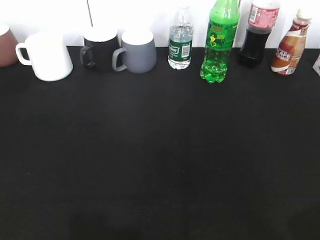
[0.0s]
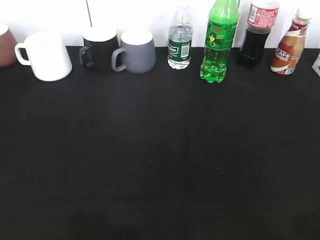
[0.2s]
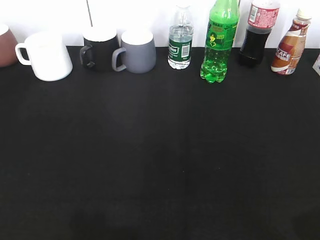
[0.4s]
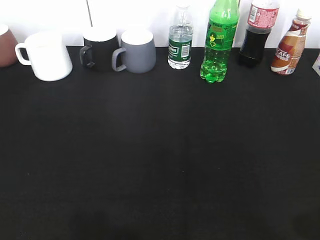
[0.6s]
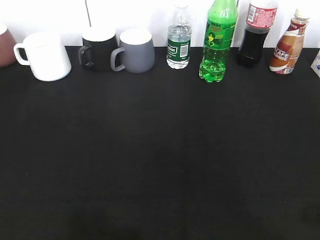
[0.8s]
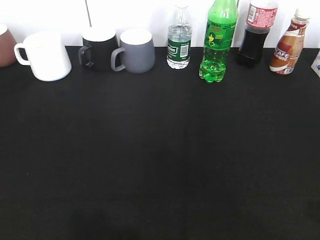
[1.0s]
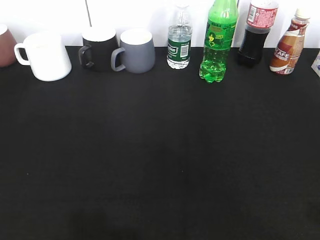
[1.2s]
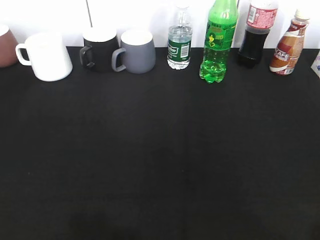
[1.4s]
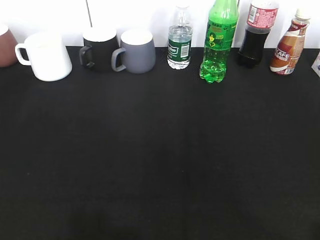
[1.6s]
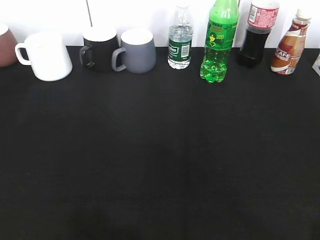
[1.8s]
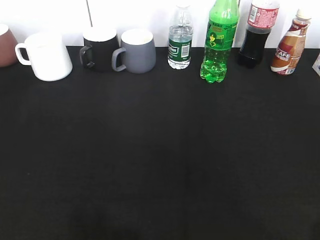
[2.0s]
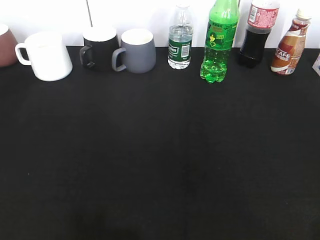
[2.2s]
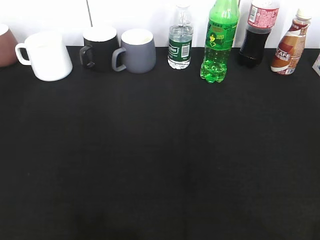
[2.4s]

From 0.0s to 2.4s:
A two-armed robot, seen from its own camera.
From 1.2s to 2.4s: The grippers stay close to where they were, moving slightly.

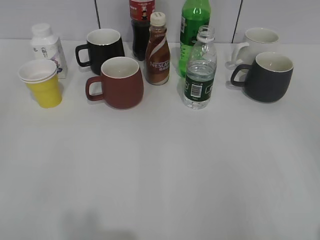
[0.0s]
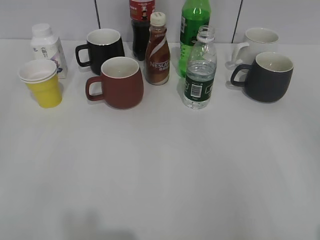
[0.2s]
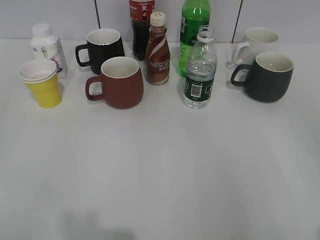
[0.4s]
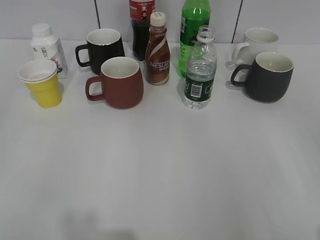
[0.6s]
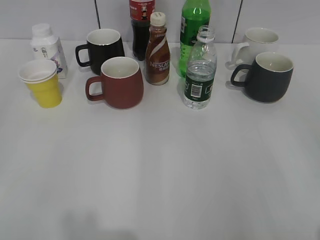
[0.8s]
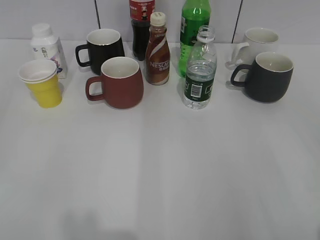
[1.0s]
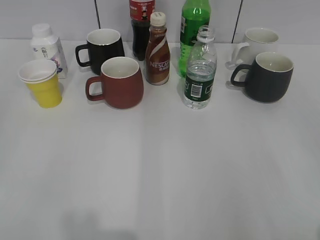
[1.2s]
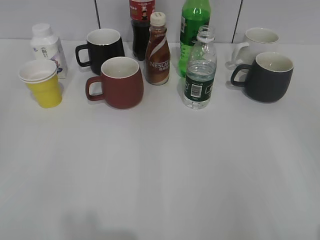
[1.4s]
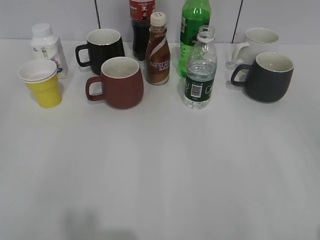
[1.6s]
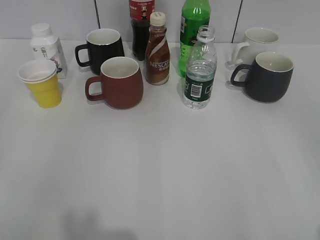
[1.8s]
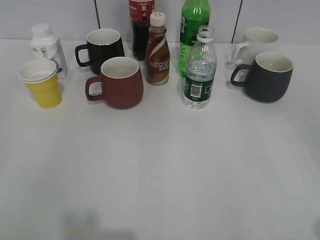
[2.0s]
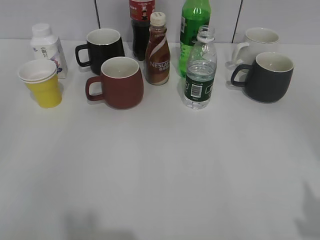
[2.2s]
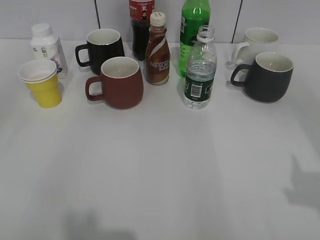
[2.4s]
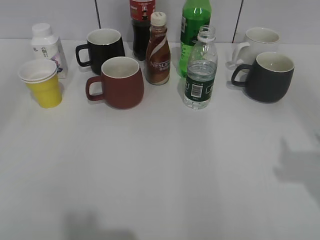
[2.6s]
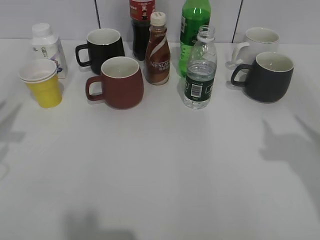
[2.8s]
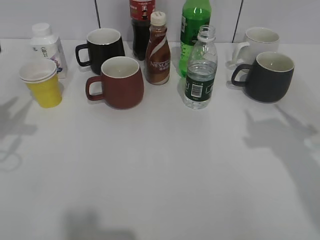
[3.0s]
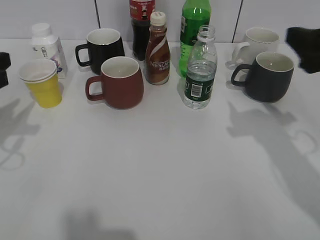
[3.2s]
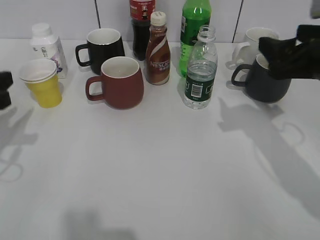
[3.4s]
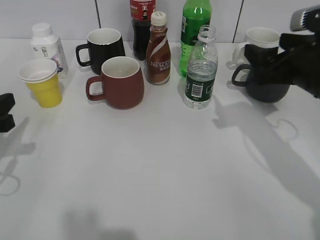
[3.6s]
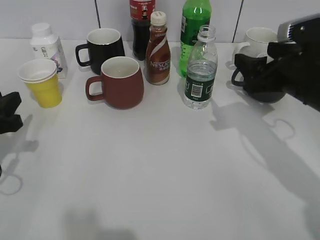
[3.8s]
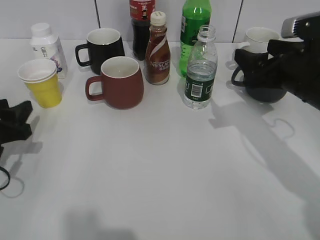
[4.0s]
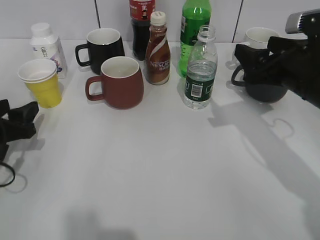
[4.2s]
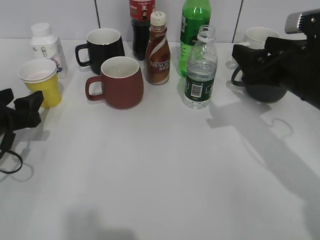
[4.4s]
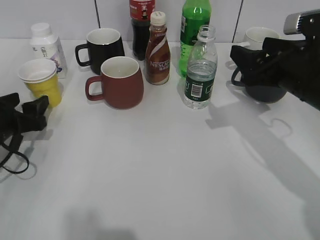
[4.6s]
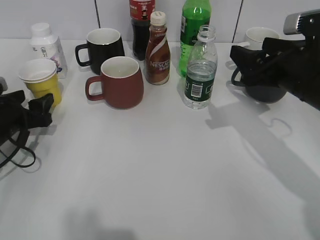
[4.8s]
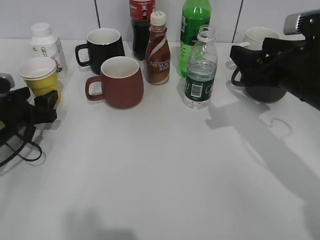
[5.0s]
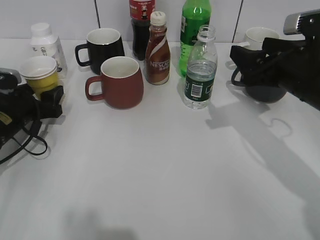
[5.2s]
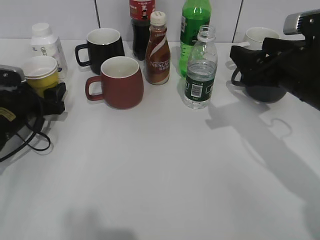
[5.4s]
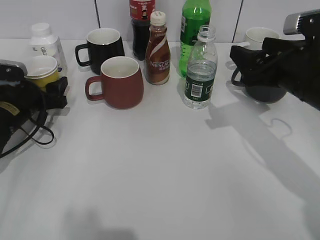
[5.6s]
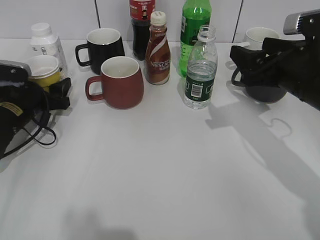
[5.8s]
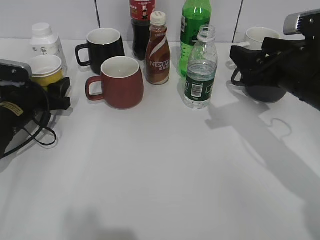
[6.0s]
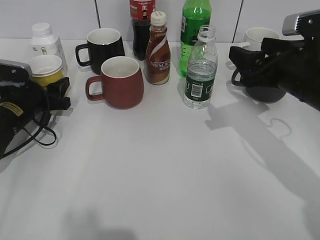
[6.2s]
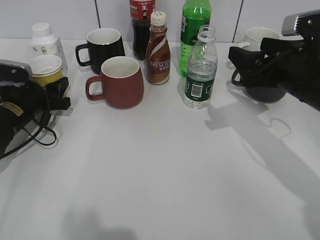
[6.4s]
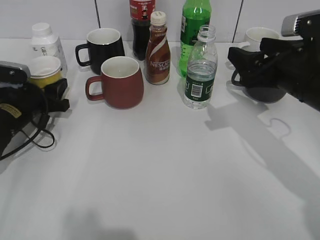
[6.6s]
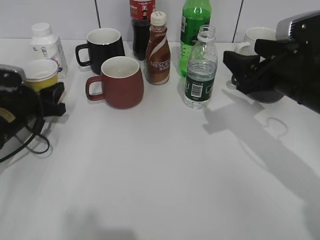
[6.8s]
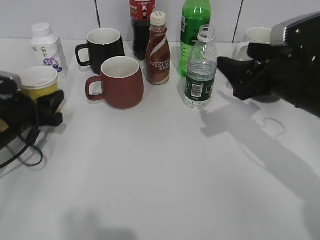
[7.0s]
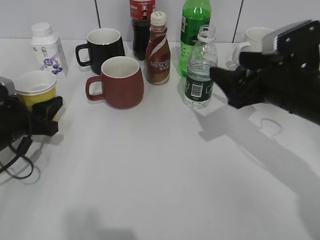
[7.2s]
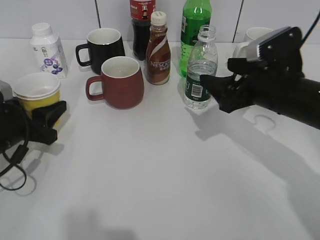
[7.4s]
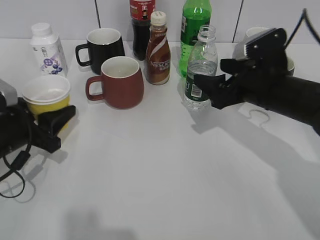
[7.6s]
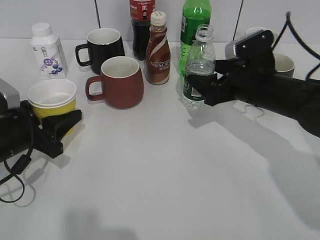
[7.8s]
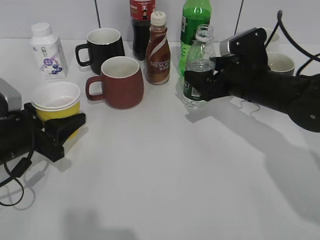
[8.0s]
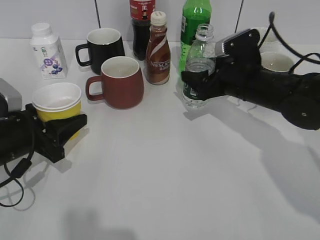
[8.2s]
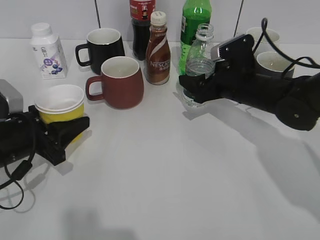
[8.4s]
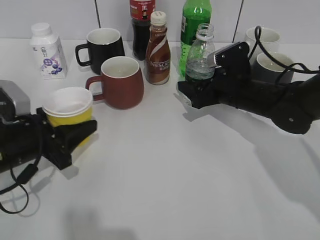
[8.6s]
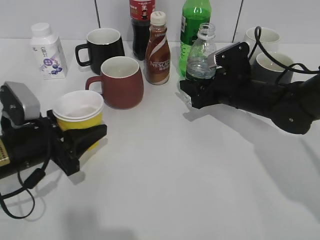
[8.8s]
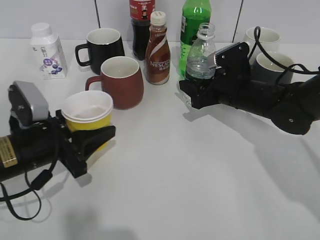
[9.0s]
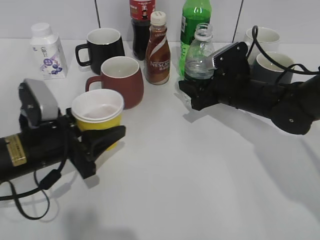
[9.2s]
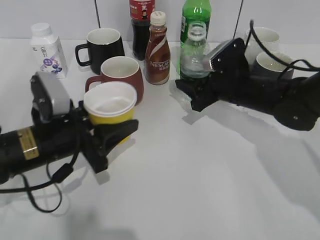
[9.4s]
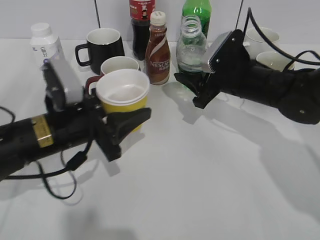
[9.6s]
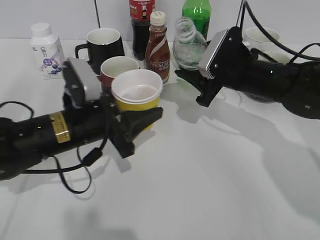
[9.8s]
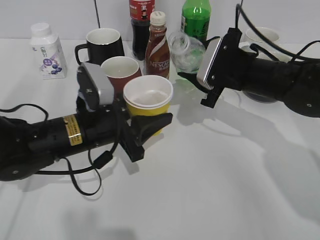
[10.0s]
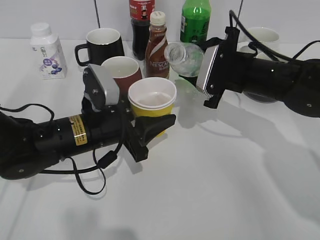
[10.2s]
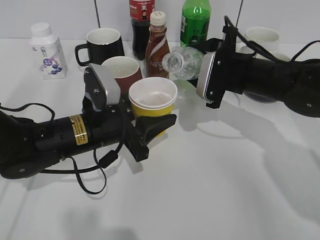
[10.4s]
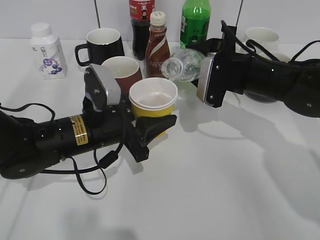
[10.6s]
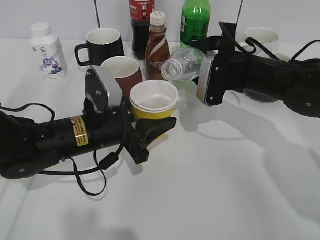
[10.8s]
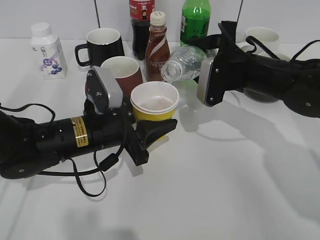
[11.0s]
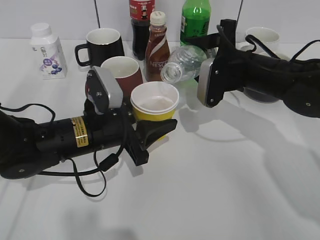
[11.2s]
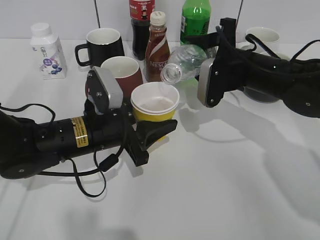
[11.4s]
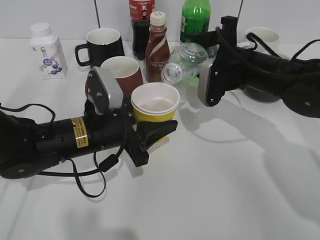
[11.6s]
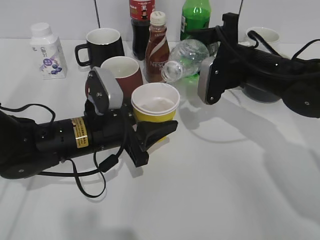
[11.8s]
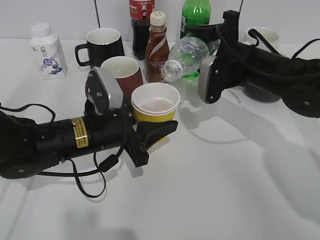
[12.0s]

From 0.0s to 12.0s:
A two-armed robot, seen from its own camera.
Step, from 1.8s to 6.8s: Grasp the yellow paper cup with left gripper.
Step, from 7.0s to 8.6s: Grasp the bottle with water with right gripper.
Step, from 8.8s to 10.2s: Lift the yellow paper cup with left gripper.
From 1.6s to 3.0s: The grippers both shift forward by roughly 20 cm.
From 3.0s to 4.4s: The right gripper shifts about 15 cm downward, forward and to the left. The left gripper shifts approximately 15 cm downward, and opens up.
From 4.4s to 6.0s: The left gripper heads forward, covering roughly 10 cm.
From 6.0s to 7.6s: The left gripper travels backward by some 10 cm; the right gripper ends up approximately 5 cm from where it was.
From 7.6s to 9.0s: The right gripper moves forward and downward, roughly 10 cm, and closes; the left gripper is displaced to the right by some 5 cm.
From 9.0s to 10.4s: The right gripper moves upward, approximately 5 cm; the left gripper goes roughly 10 cm to the right.

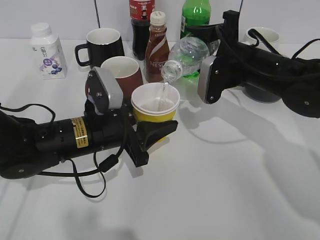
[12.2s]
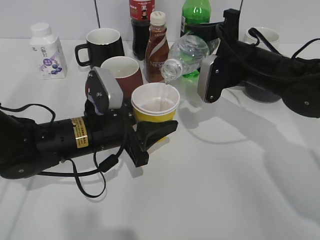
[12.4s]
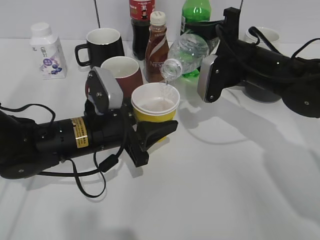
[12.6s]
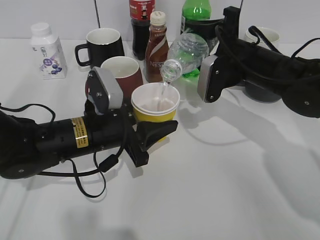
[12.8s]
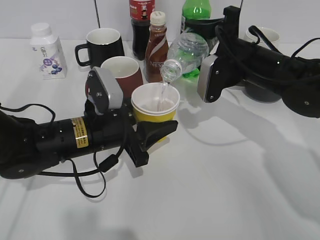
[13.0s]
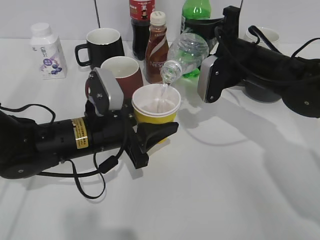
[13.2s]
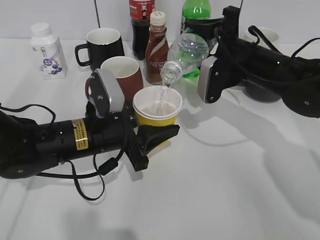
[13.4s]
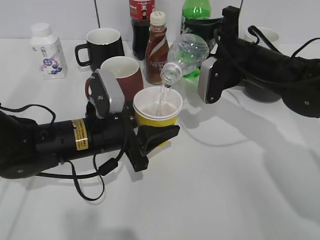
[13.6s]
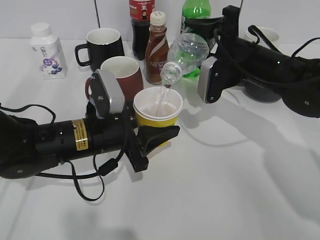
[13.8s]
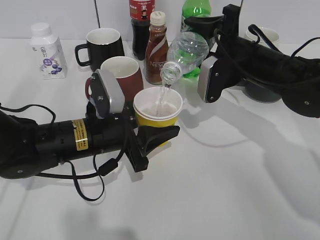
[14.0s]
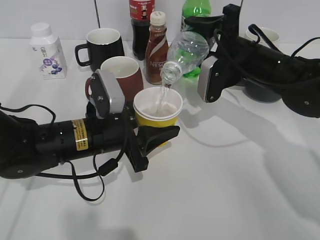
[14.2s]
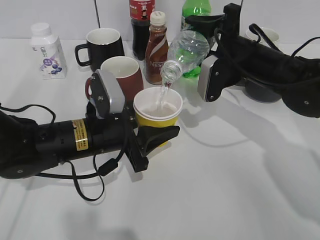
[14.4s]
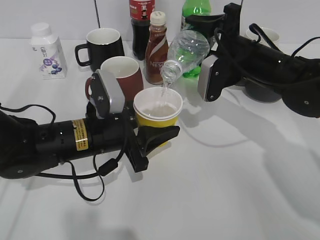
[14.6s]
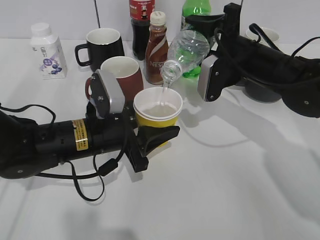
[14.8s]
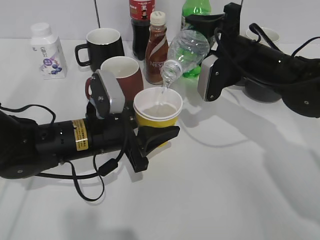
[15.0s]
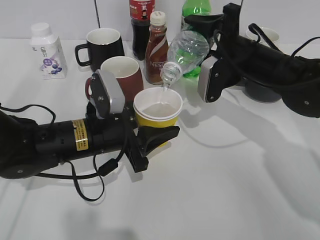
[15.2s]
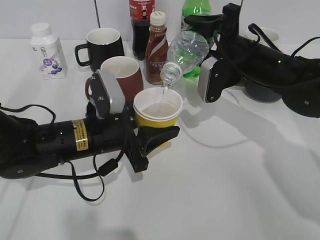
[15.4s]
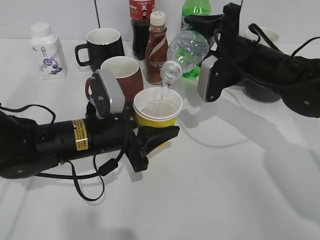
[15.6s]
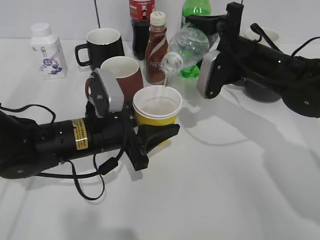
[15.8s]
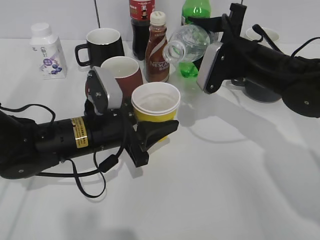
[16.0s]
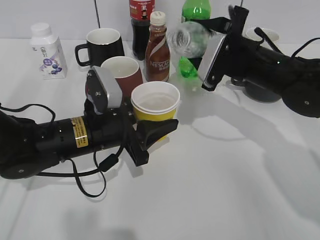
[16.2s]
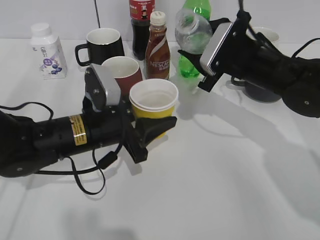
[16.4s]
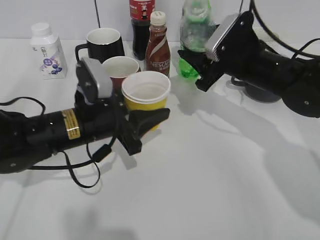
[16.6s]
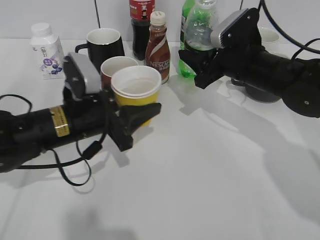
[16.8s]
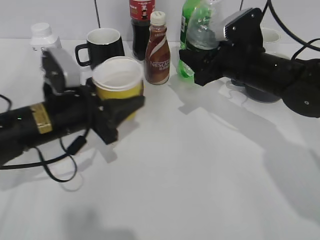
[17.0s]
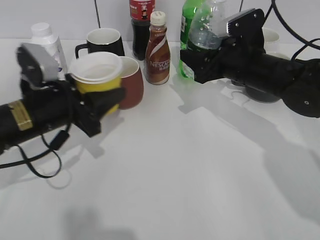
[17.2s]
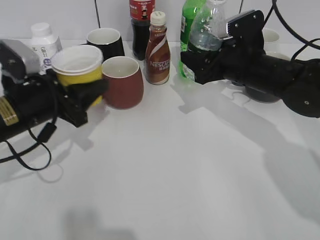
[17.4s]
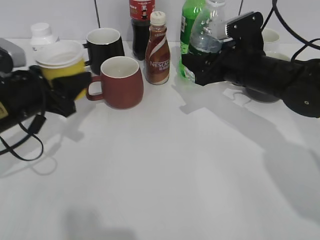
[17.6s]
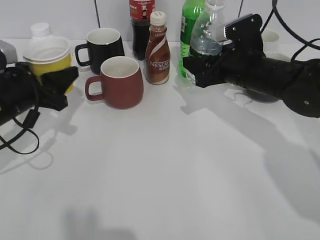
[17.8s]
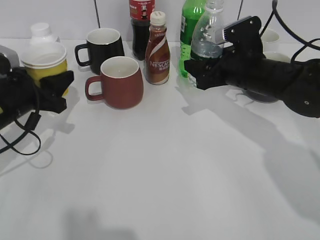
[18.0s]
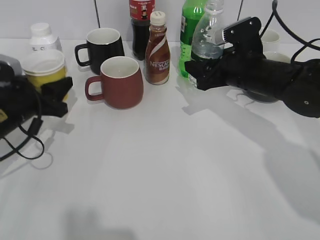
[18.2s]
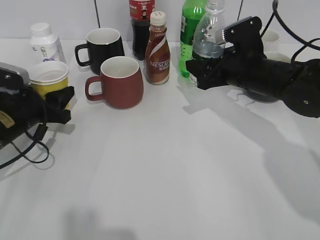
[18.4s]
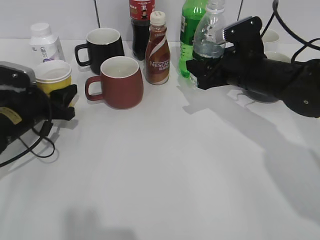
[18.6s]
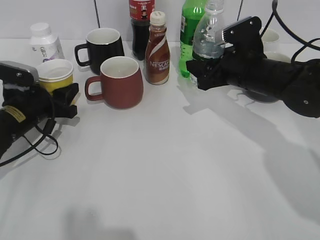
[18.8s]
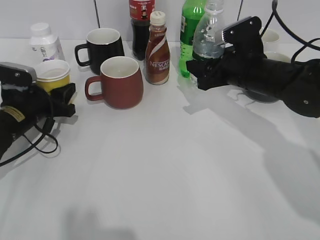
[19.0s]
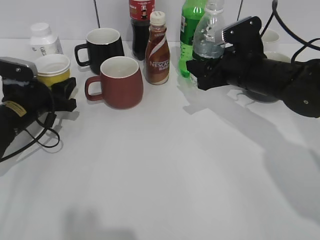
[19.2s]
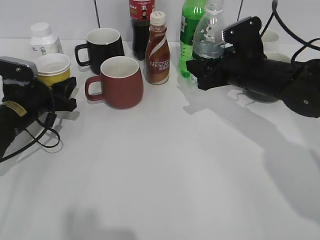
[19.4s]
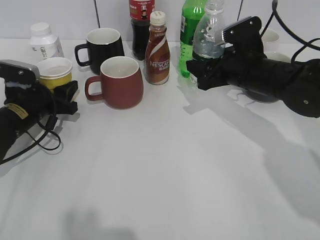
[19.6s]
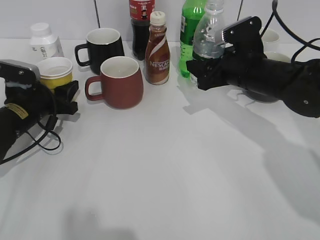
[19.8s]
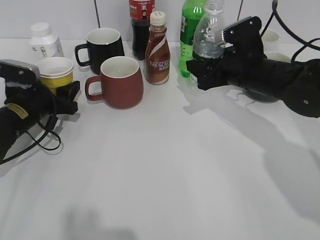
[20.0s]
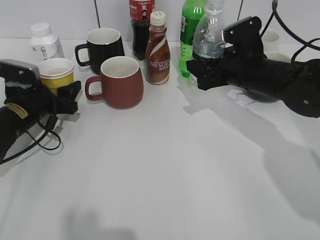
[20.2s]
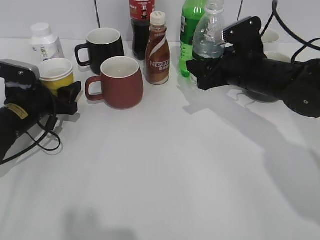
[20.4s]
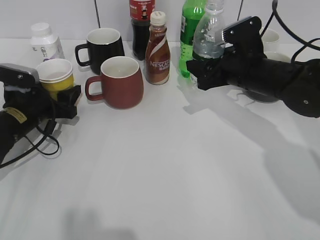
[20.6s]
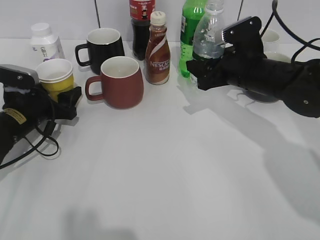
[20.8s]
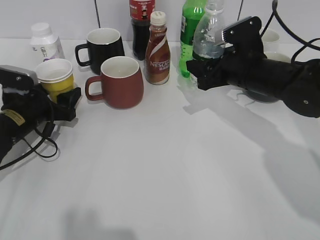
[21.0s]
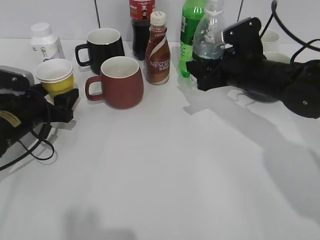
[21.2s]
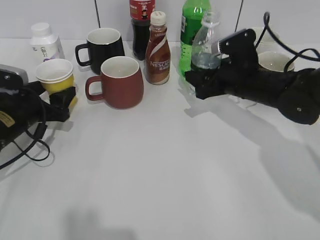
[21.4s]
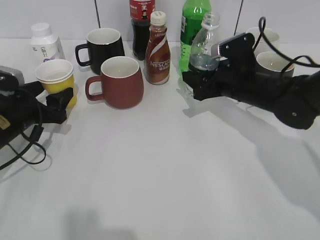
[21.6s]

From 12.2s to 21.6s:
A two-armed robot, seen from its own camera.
Step, from 12.2s to 16.0s: Pour the water from bottle to cup with right gripper.
Step, from 16.2s to 21.0s: Place the yellow paper cup on the table with left gripper.
From 12.2s to 13.8s: The grippers make only small movements.
From 13.8s to 15.4s: The two grippers keep their place.
From 15.4s to 17.0s: The left gripper moves some 5 cm.
From 17.0s to 18.4s: The left gripper shifts roughly 10 cm to the left.
From 18.4s to 20.0s: The left gripper opens its fingers.
From 20.0s to 21.6s: The left gripper opens its fingers.
